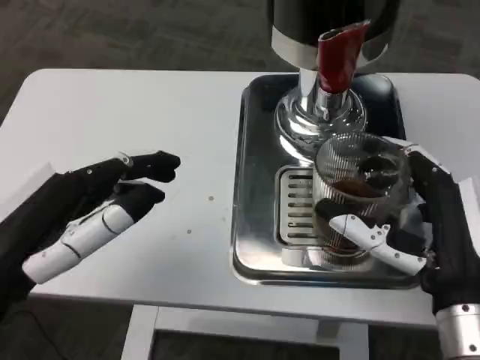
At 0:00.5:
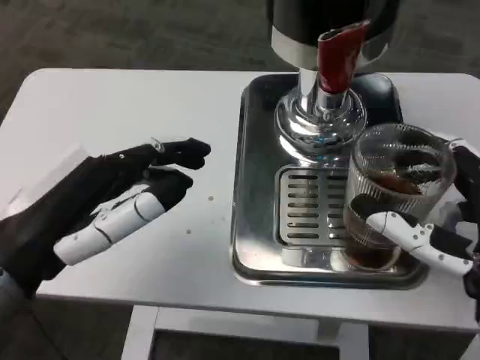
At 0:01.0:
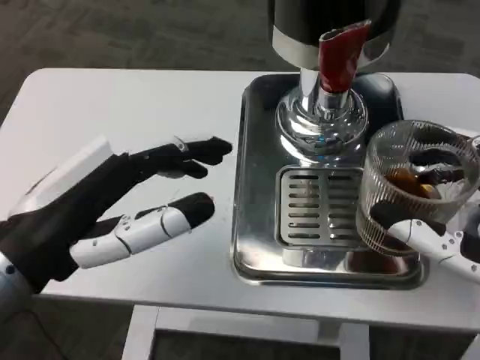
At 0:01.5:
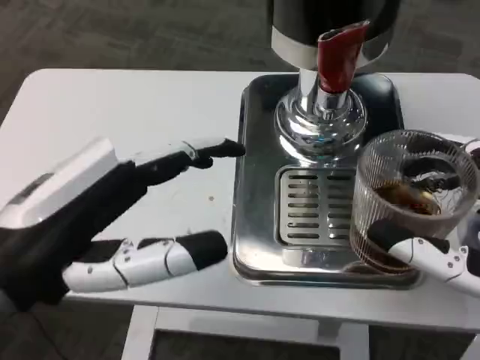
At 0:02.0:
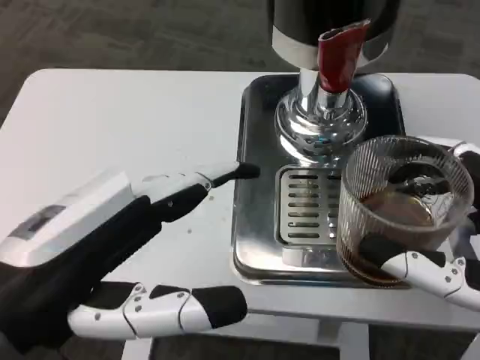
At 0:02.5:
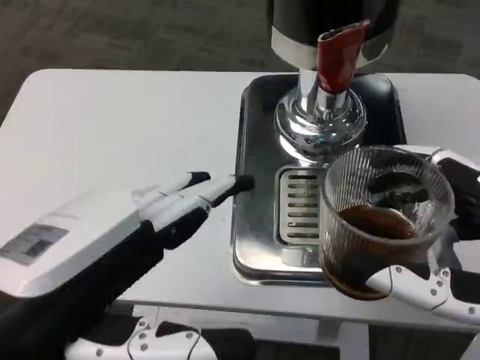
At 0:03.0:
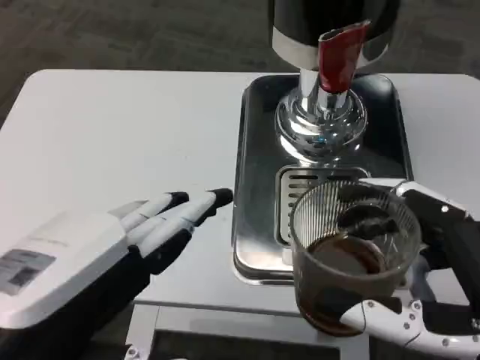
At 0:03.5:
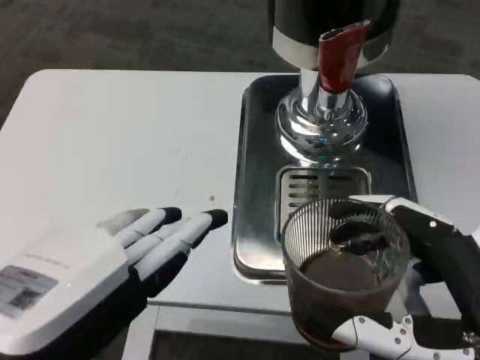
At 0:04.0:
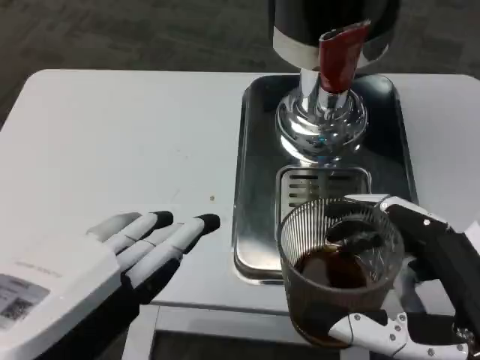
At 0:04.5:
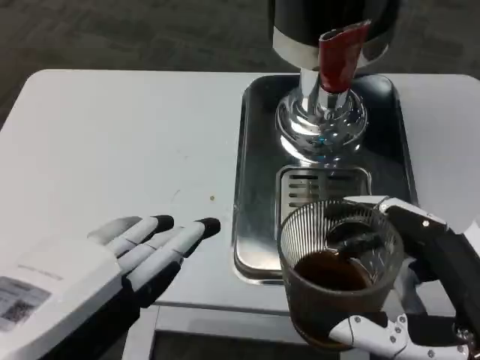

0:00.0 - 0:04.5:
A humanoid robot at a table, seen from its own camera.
Task of the whole recording: Grasp the cup under the faucet to collect the drink, then remove the cup.
0:00.0 - 0:02.0: The right hand moves backward, some 10 cm. Meanwhile the left hand changes place by roughly 5 cm.
0:02.0 - 0:04.5: The left hand travels backward by roughly 5 cm.

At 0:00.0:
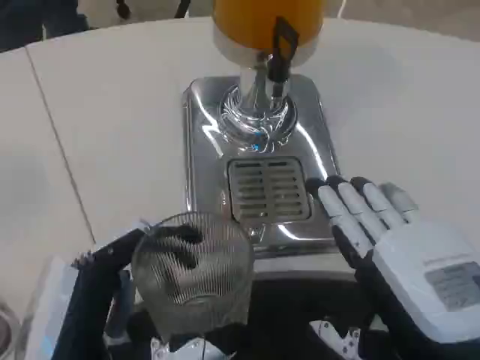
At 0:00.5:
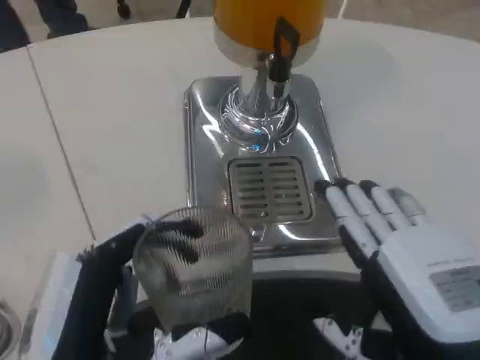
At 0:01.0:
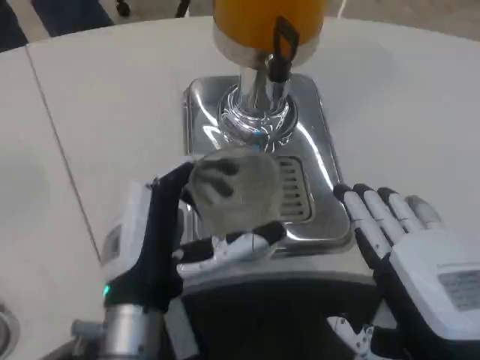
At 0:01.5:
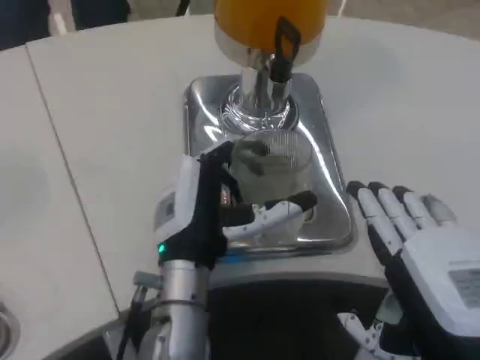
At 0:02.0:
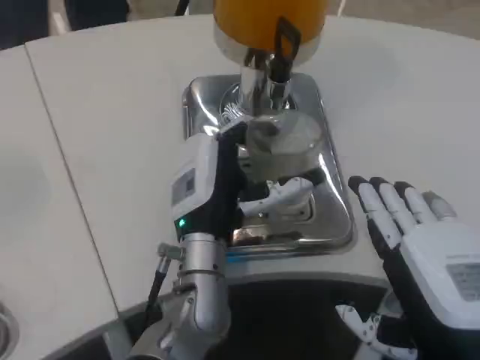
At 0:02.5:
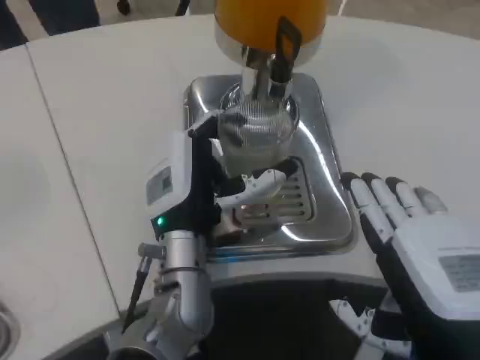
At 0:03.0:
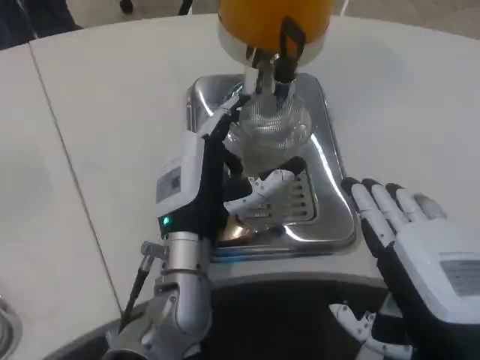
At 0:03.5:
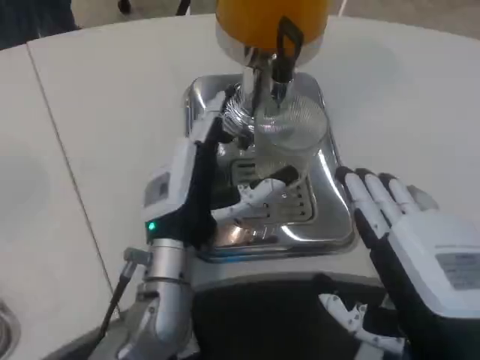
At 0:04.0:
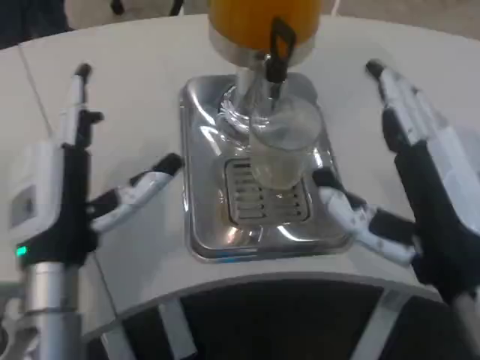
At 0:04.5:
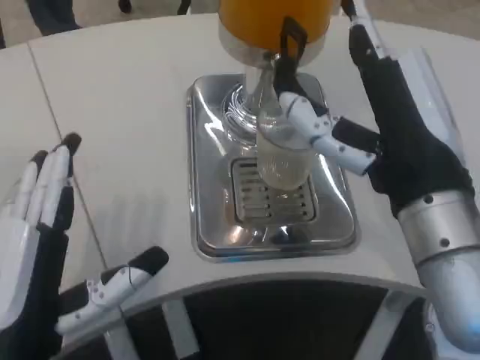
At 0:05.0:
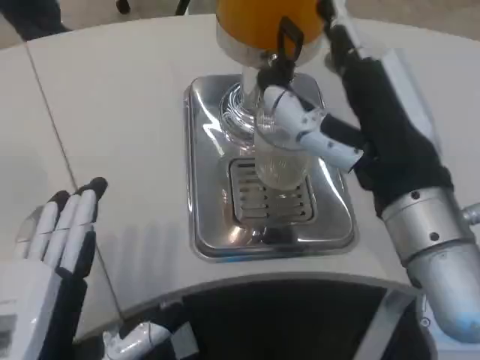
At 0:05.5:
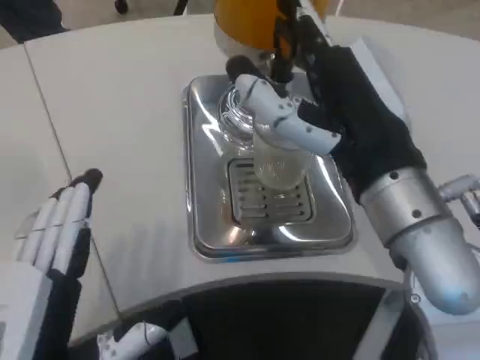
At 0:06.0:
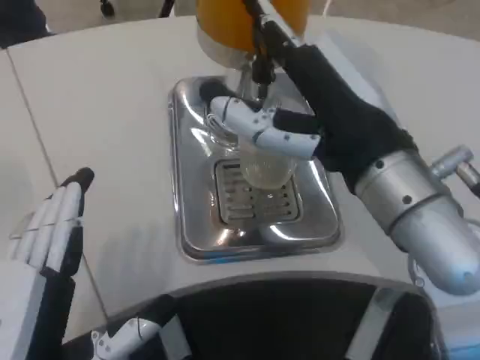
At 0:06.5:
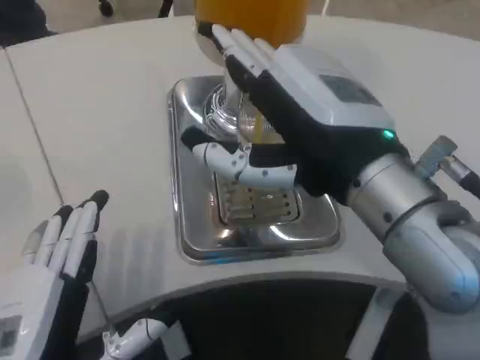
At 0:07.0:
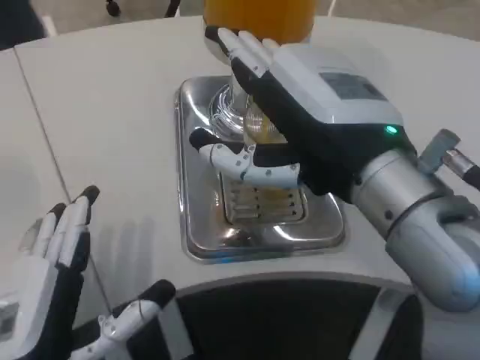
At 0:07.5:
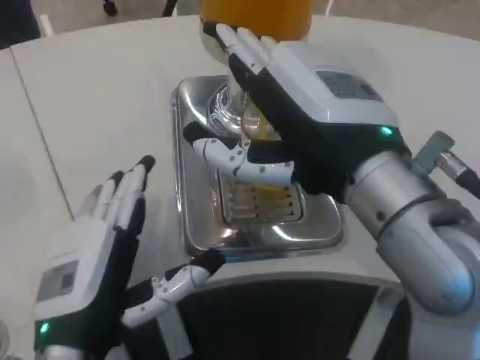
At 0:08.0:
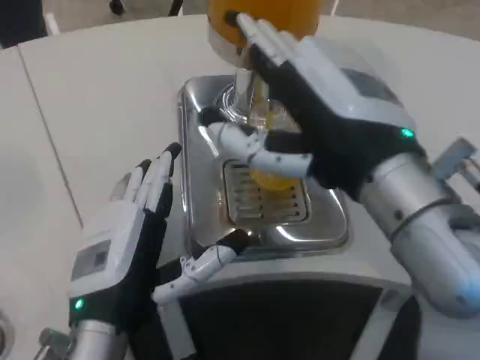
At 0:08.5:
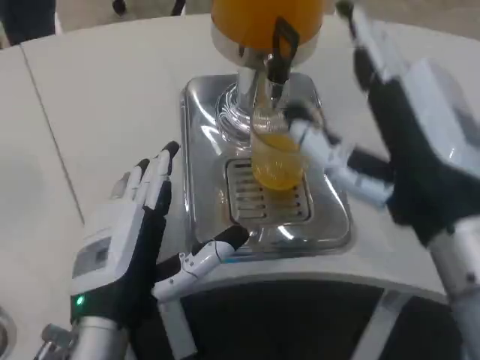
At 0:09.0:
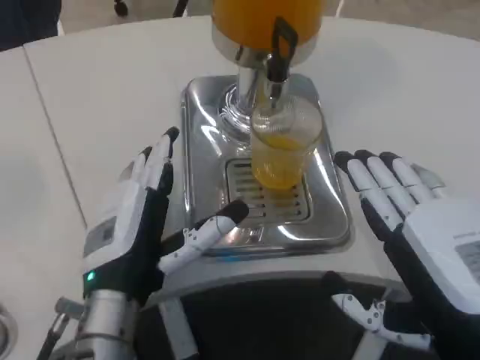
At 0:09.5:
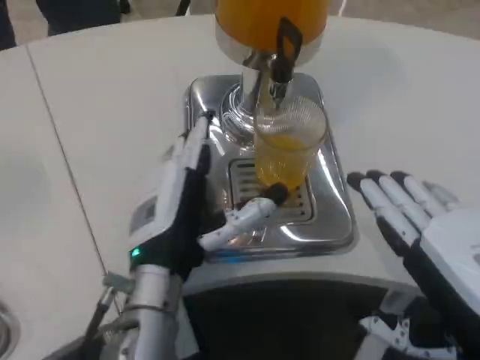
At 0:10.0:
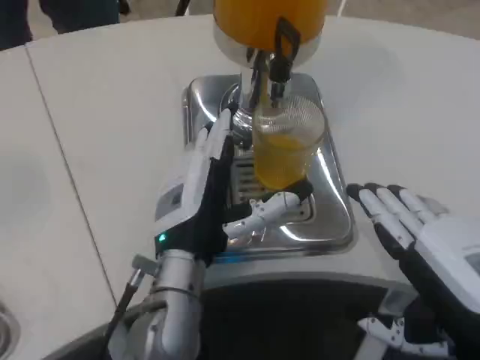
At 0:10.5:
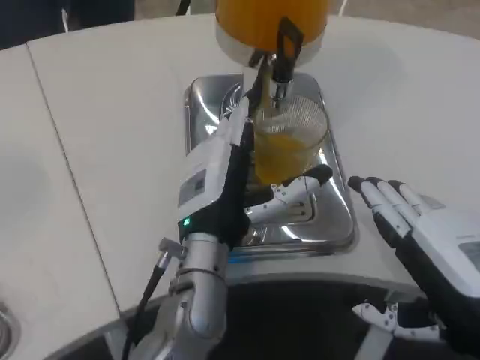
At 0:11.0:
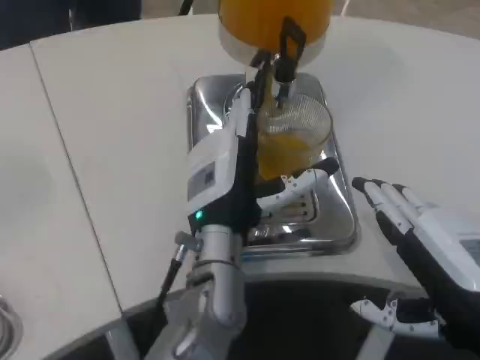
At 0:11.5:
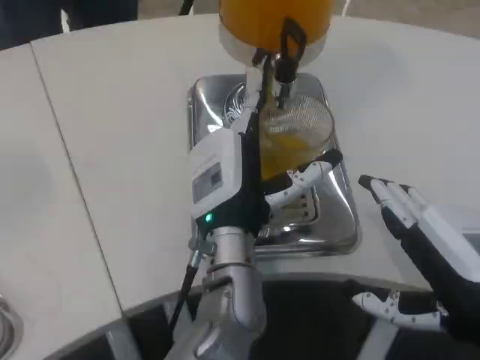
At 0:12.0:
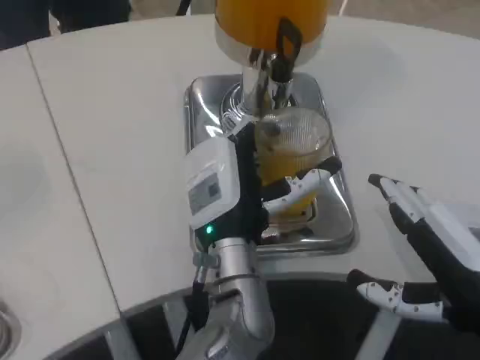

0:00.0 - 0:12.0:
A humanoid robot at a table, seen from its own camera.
Task of the whole recording: Grasp the cup under the faucet to collect the drink, then remove the cup.
0:00.0 - 0:02.0: The left hand travels forward and to the right by roughly 20 cm.
0:02.0 - 0:04.0: The left hand heads to the left and backward, covering roughly 15 cm, while the right hand moves about 5 cm.
0:04.0 - 0:06.0: The right hand goes about 10 cm forward and upward, while the left hand shifts roughly 15 cm backward.
0:06.0 - 0:08.0: The left hand is displaced forward and to the right by about 10 cm.
0:08.0 - 0:10.0: The right hand goes about 15 cm downward and to the right; the left hand goes approximately 10 cm forward and to the right.
0:10.0 - 0:12.0: The left hand travels to the right by some 5 cm.

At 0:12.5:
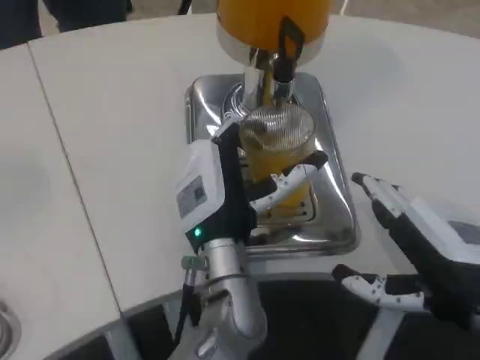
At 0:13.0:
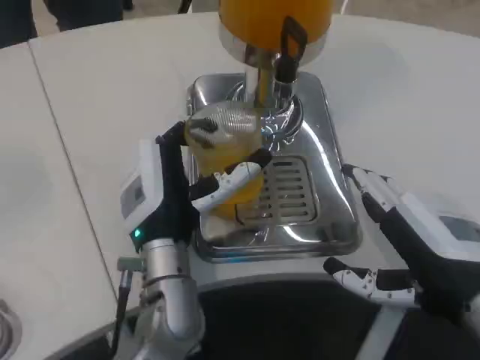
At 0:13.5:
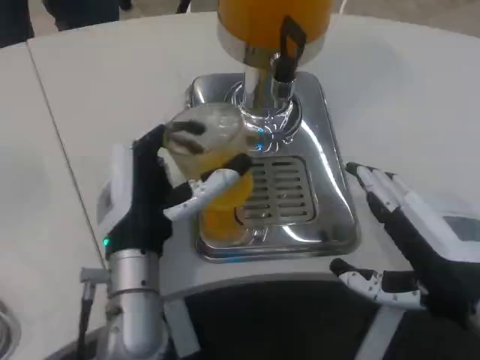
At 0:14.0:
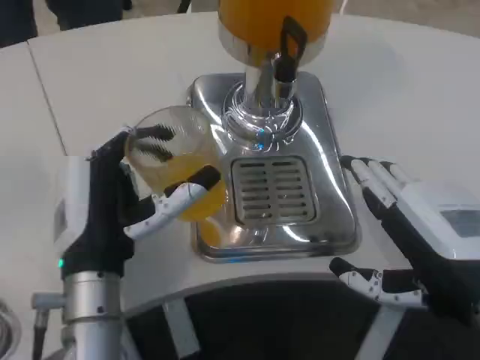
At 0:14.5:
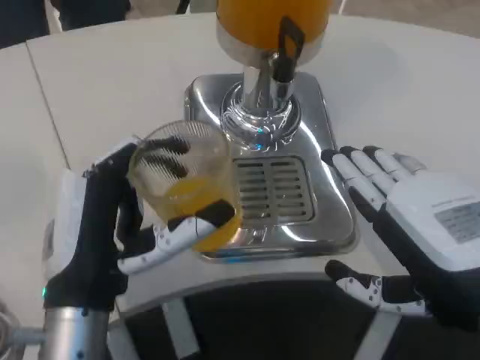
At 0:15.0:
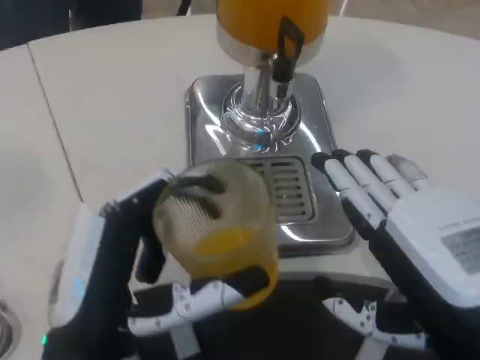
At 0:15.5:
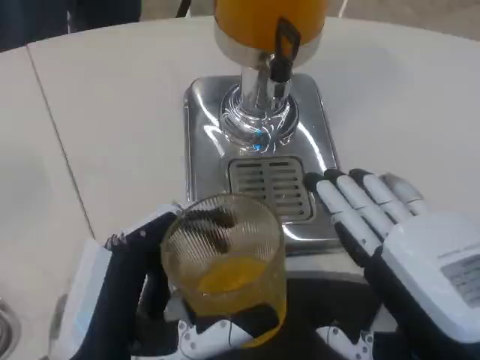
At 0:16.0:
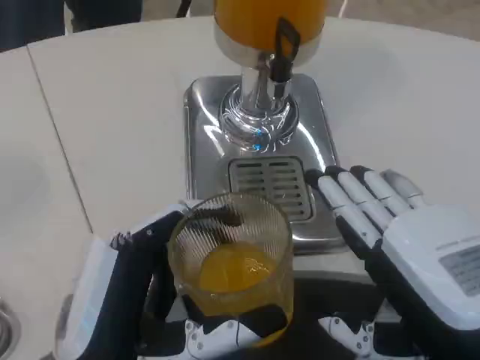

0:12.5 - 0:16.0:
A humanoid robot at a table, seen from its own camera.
Task of the whole recording: Grasp the cup under the faucet to collect the drink, then remove the cup.
0:12.5 - 0:14.5: The left hand heads to the left and backward, covering approximately 15 cm.
0:14.5 - 0:16.0: The left hand is displaced backward by roughly 5 cm.

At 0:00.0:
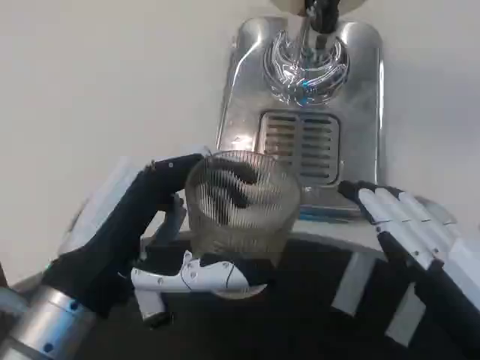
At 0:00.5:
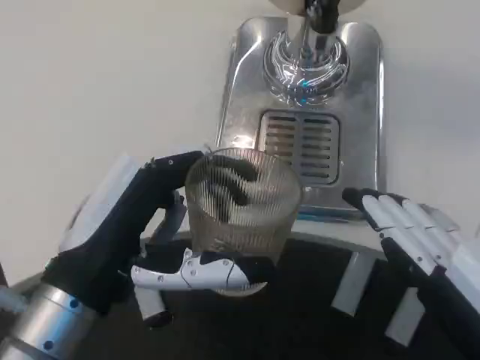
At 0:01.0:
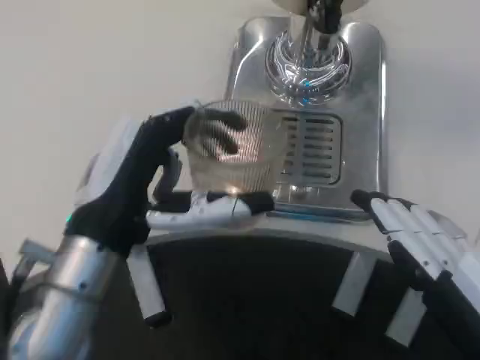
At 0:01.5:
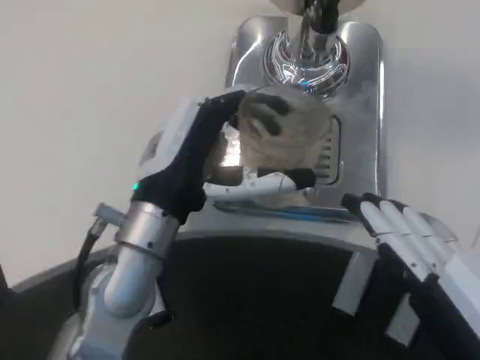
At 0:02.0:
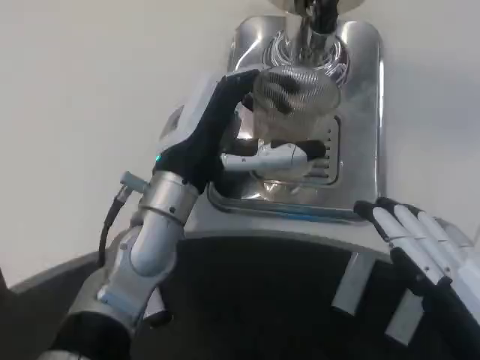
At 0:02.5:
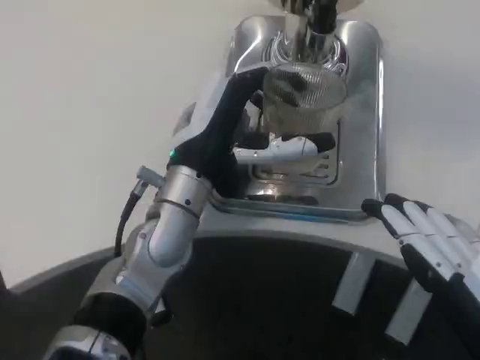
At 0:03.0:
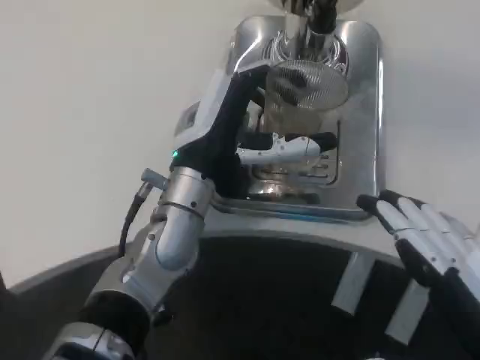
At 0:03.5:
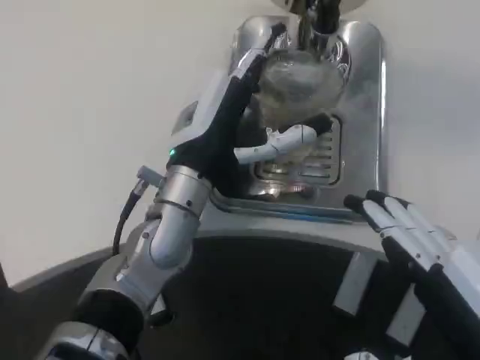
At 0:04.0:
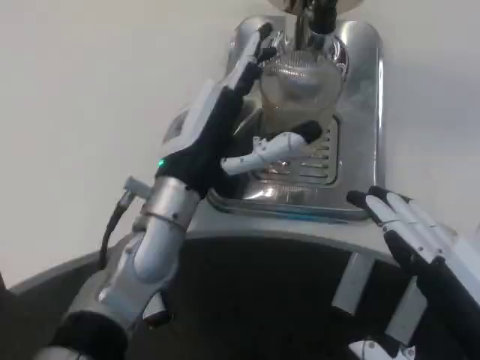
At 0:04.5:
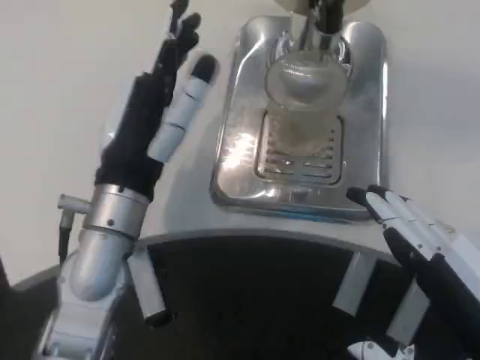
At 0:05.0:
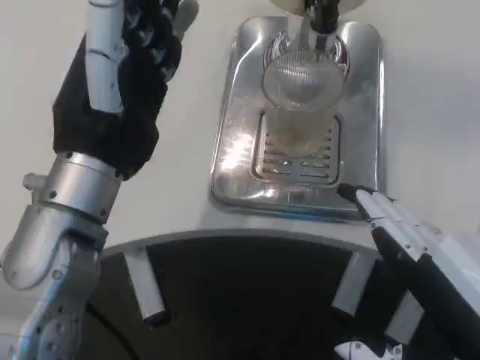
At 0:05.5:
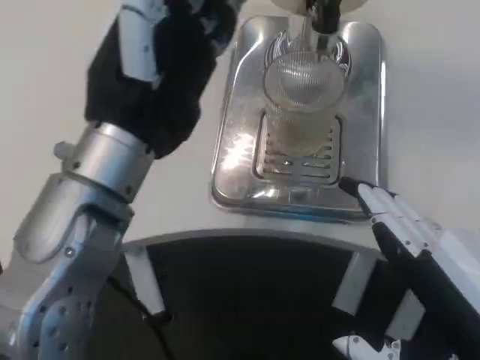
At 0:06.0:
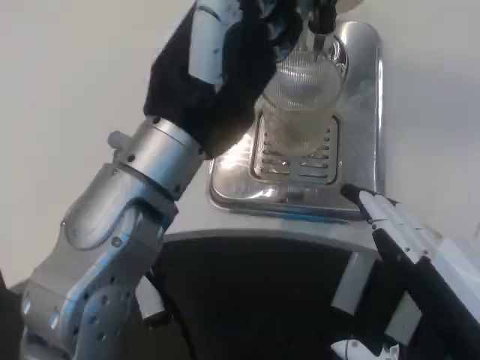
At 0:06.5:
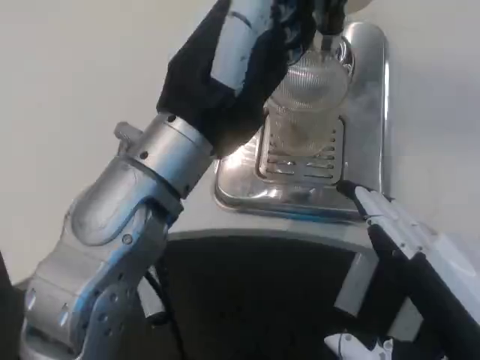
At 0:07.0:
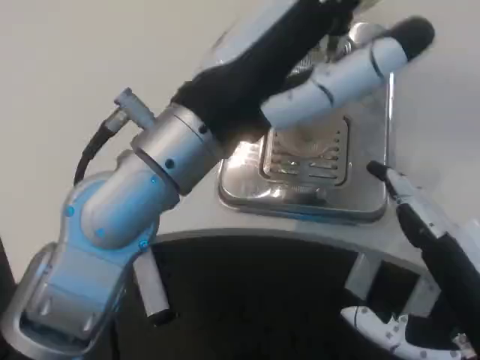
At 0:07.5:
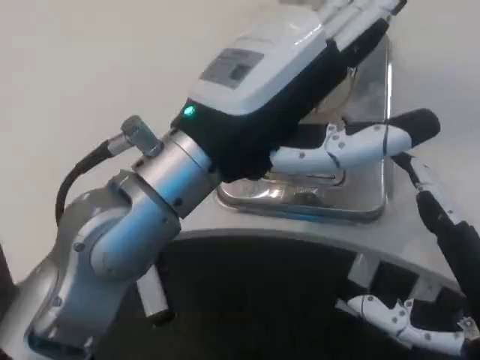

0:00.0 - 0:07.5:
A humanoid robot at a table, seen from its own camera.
Task of the whole recording: Grasp the cup under the faucet to collect the drink, then remove the cup.
0:00.0 - 0:02.0: The left hand travels forward and to the right by some 15 cm.
0:02.0 - 0:04.0: The hands stay close to where they were, moving slightly.
0:04.0 - 0:05.5: The left hand travels upward and backward by approximately 15 cm.
